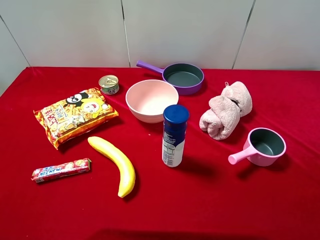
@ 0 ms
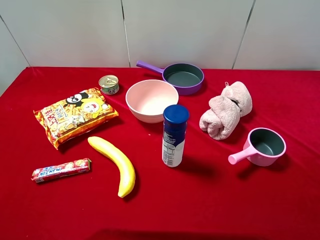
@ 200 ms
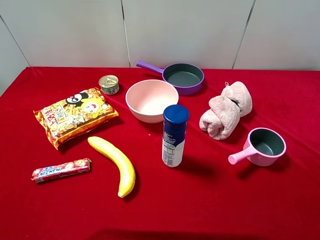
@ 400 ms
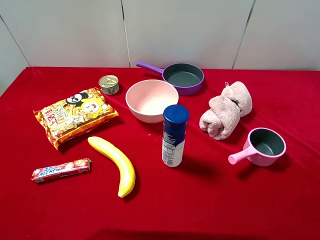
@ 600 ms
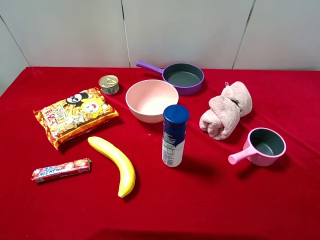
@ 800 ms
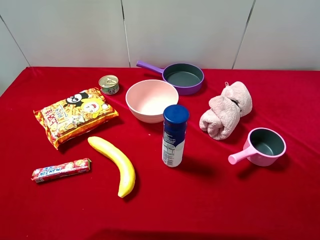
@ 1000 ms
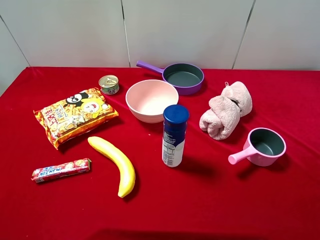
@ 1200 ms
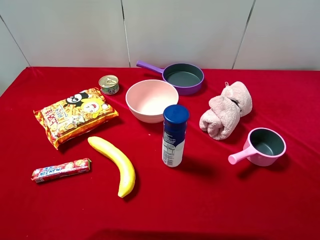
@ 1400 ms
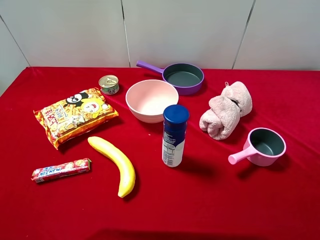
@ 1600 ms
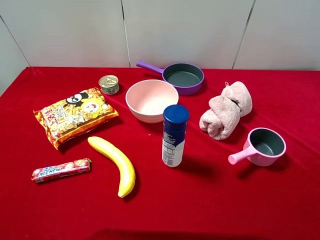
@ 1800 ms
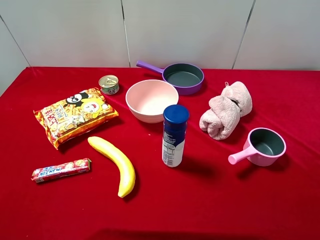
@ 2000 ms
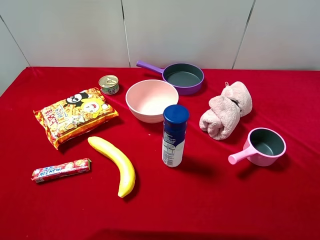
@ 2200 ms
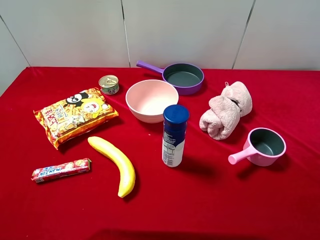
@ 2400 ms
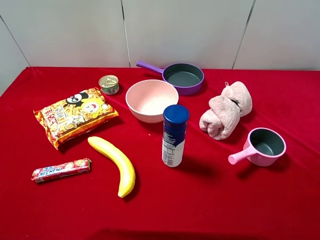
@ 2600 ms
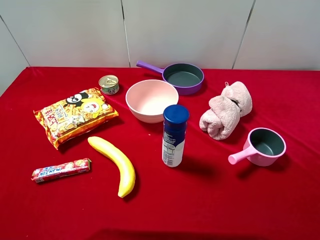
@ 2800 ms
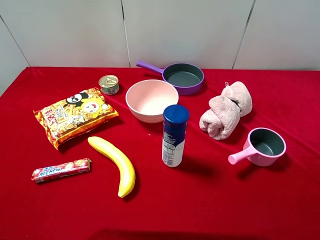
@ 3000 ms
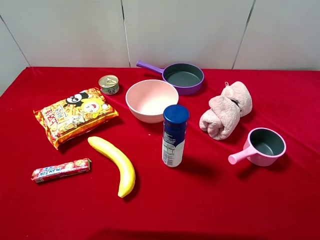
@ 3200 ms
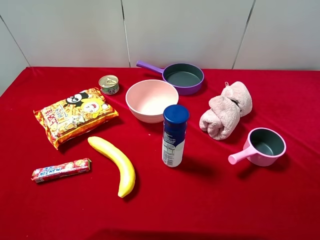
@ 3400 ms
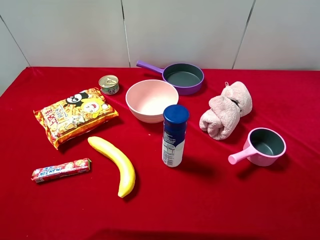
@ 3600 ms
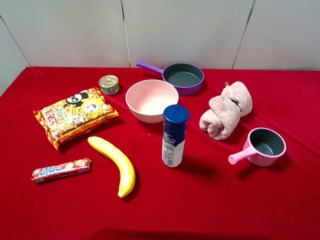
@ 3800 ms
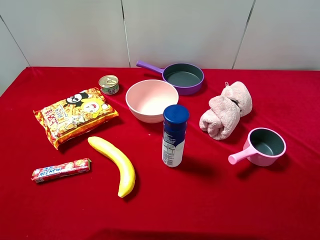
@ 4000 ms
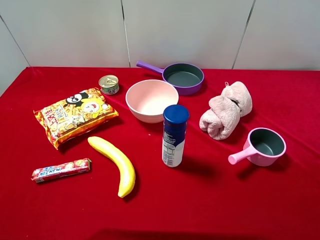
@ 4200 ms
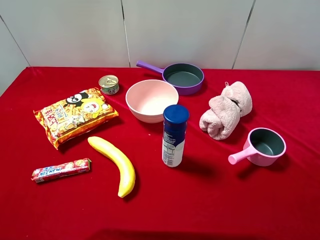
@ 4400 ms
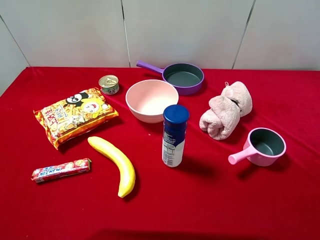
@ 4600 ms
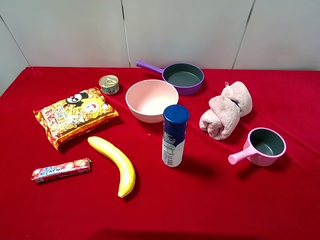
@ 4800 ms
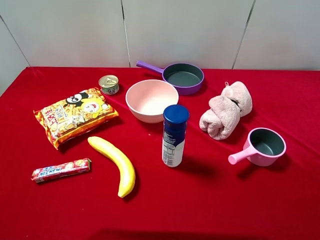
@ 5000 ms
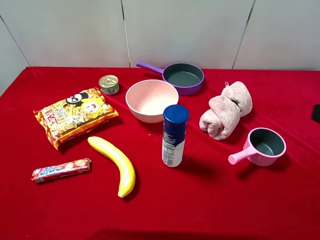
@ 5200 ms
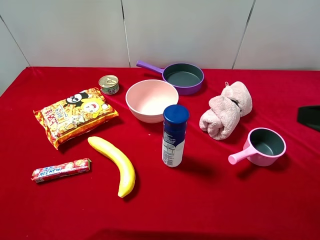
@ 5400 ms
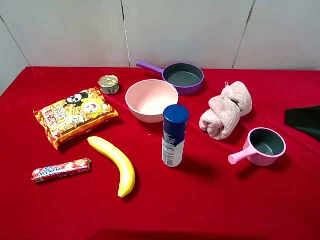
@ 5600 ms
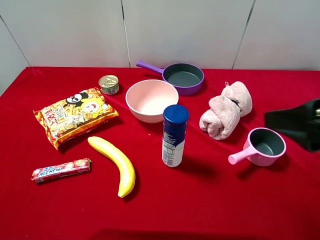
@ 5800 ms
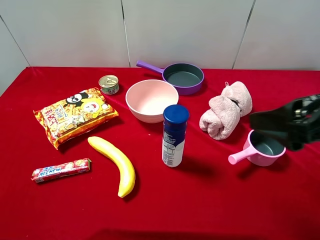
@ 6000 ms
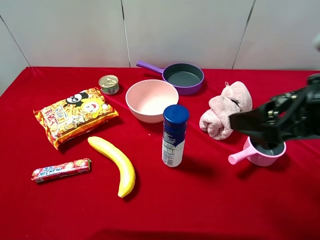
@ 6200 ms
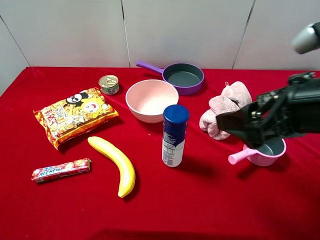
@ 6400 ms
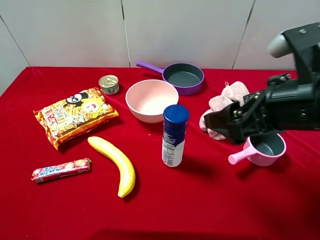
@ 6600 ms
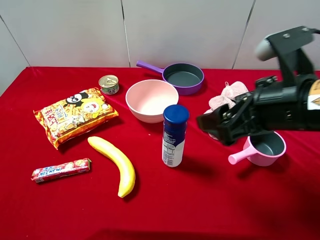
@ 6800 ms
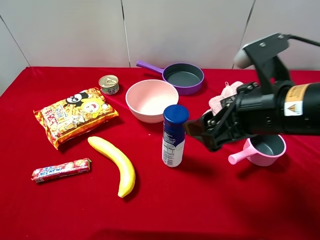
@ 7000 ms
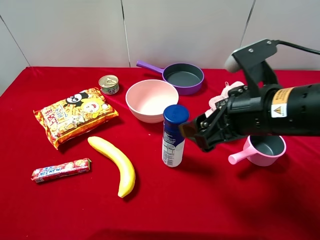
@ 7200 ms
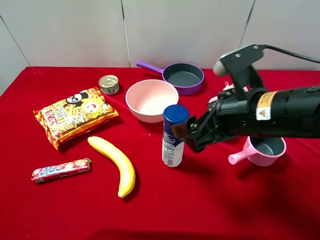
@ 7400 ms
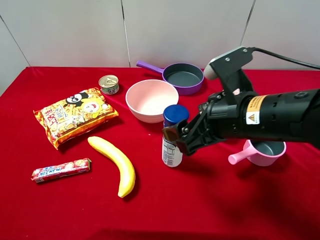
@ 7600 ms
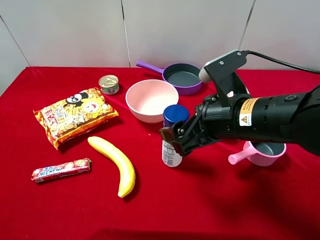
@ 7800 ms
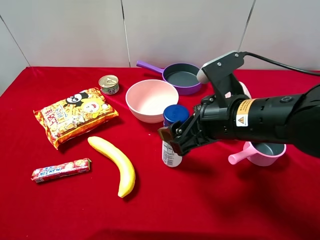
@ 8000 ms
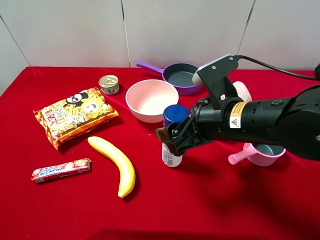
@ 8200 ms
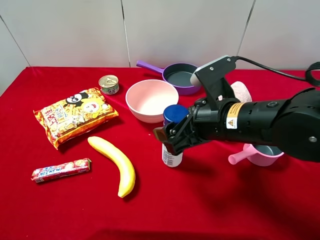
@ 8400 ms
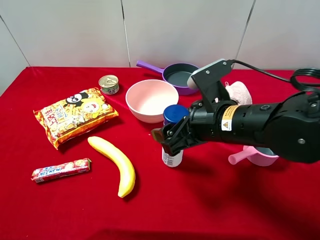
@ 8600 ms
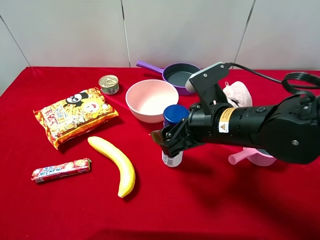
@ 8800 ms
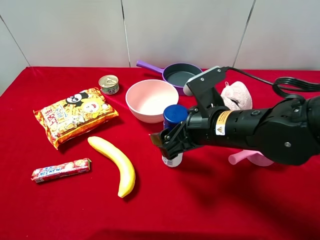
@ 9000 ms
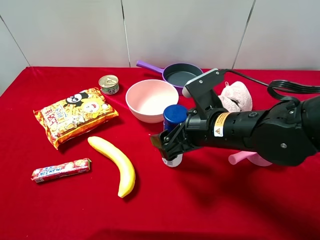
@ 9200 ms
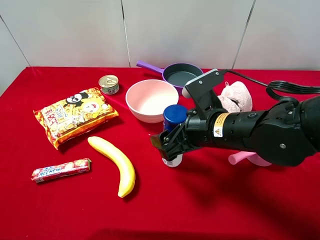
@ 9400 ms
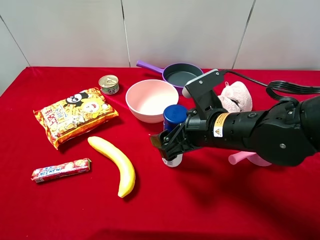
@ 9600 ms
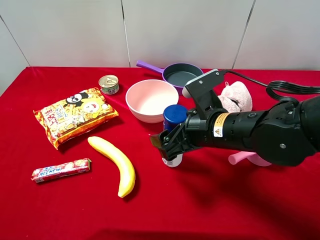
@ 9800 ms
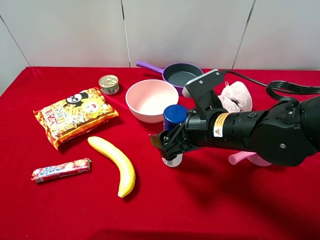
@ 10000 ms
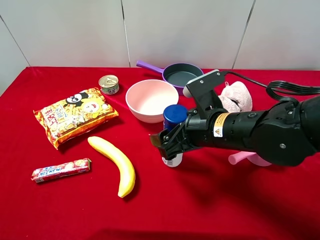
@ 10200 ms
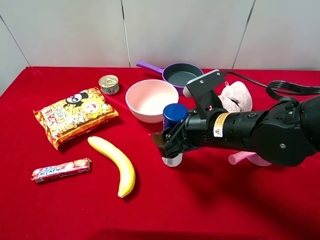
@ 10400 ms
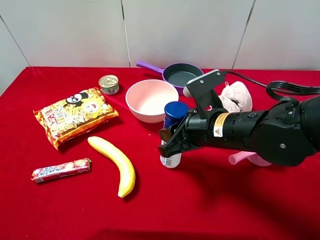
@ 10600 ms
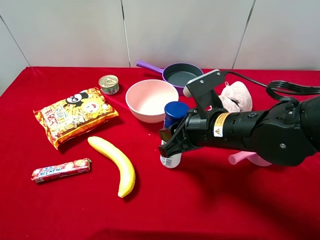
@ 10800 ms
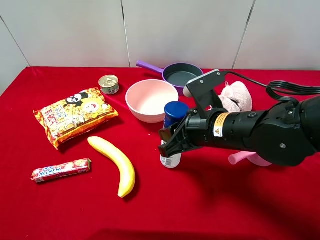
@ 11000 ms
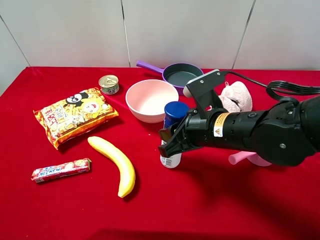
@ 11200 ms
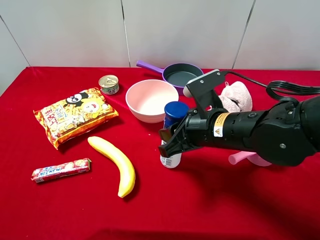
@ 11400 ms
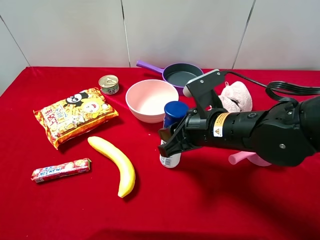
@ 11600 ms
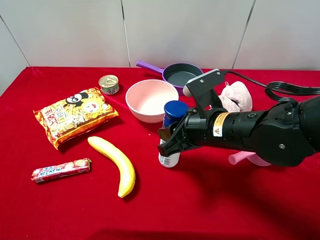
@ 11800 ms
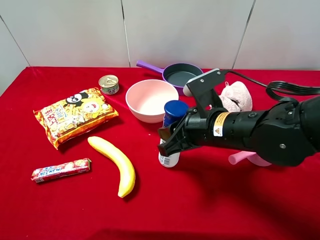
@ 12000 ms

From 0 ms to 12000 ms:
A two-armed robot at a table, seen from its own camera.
Task of the whole recording: pick up an item with a gripper and place it in a random container on the desktop.
From 0 ms to 3000 ms: The two grippers keep their place.
From 4400 ms to 6000 ms: The right gripper shifts about 10 cm forward and to the left.
From 6000 ms to 7600 ms: The right gripper travels to the left, downward and forward by approximately 15 cm.
From 7600 ms to 9000 ms: The right gripper ends up approximately 5 cm from where it was.
From 9000 ms to 10400 ms: The right gripper closes its fingers.
From 10400 ms to 12000 ms: The right gripper closes up.

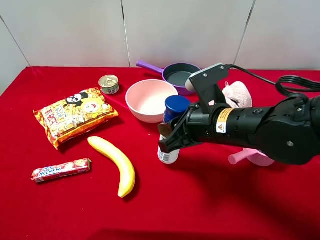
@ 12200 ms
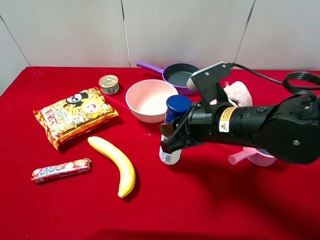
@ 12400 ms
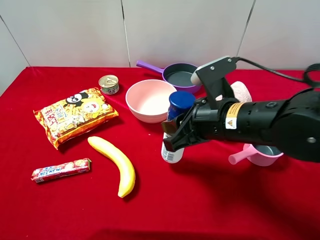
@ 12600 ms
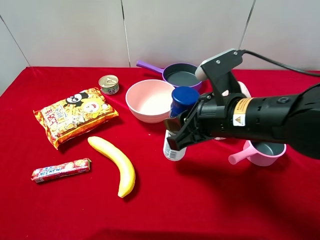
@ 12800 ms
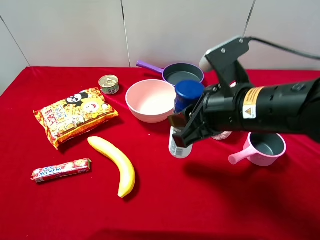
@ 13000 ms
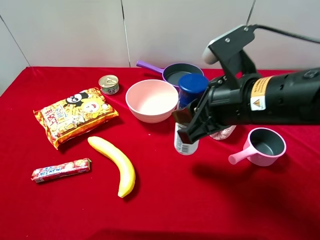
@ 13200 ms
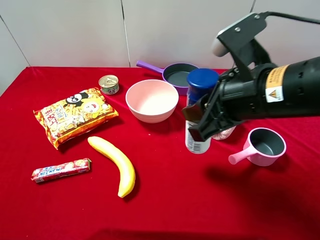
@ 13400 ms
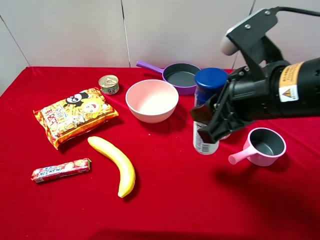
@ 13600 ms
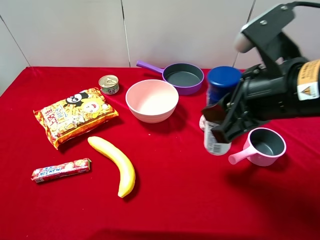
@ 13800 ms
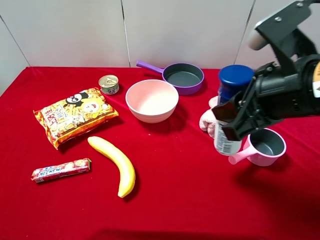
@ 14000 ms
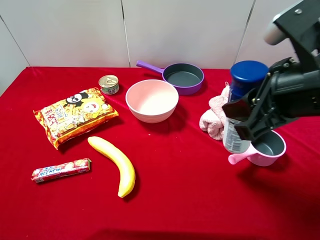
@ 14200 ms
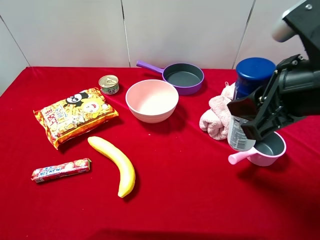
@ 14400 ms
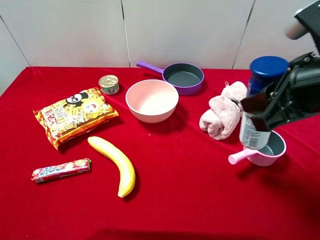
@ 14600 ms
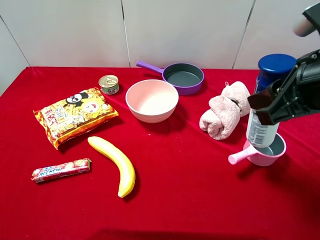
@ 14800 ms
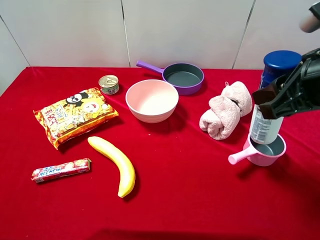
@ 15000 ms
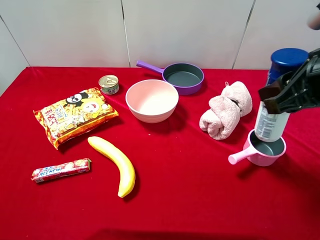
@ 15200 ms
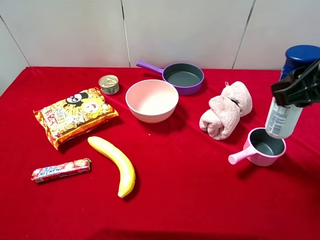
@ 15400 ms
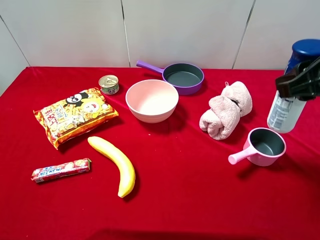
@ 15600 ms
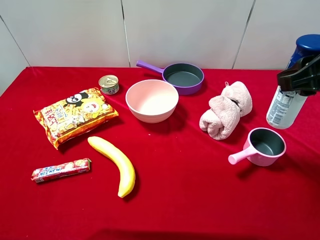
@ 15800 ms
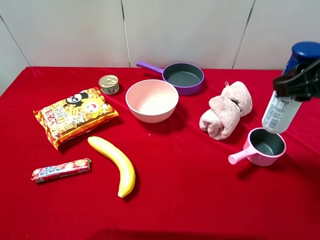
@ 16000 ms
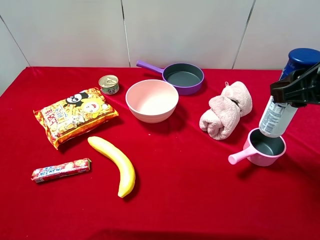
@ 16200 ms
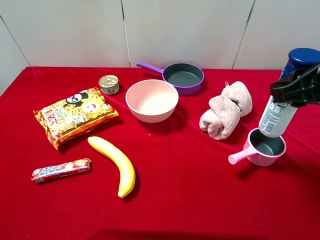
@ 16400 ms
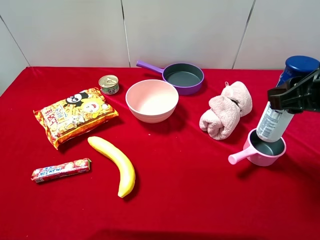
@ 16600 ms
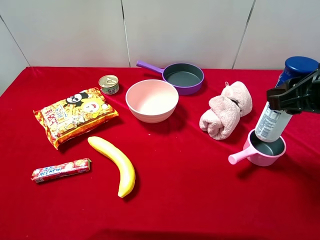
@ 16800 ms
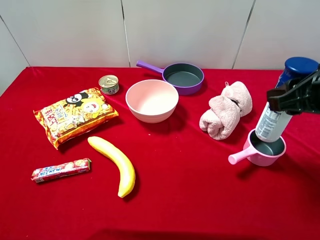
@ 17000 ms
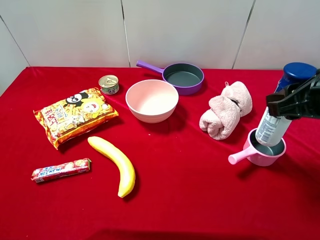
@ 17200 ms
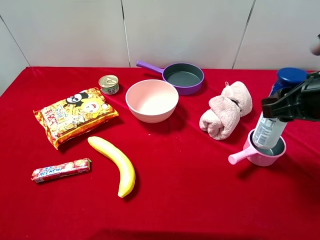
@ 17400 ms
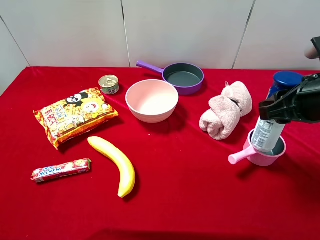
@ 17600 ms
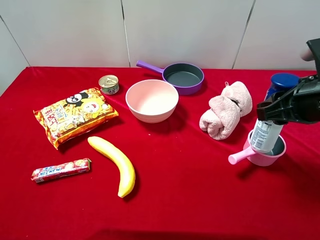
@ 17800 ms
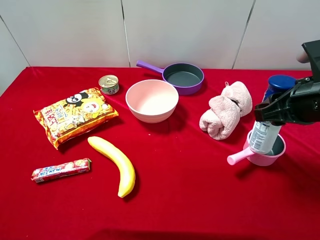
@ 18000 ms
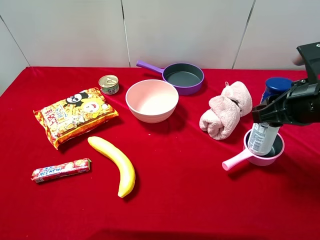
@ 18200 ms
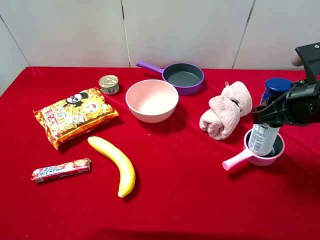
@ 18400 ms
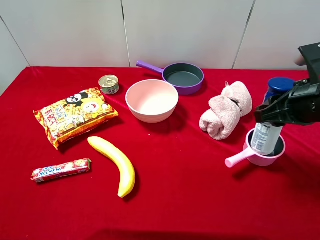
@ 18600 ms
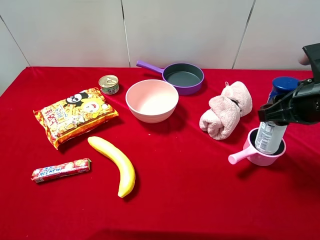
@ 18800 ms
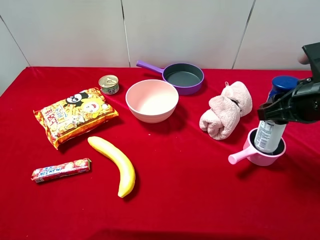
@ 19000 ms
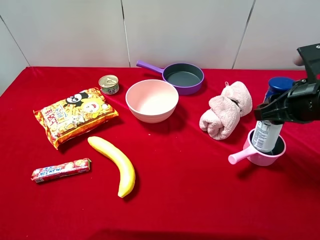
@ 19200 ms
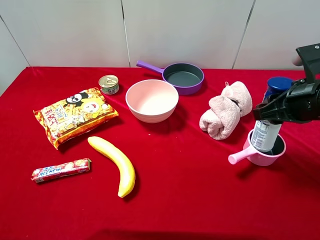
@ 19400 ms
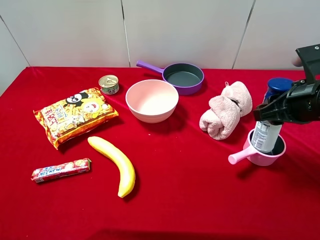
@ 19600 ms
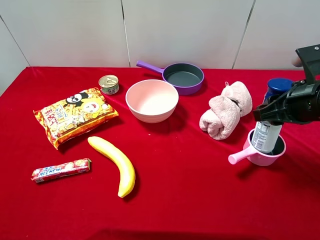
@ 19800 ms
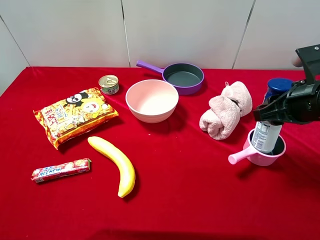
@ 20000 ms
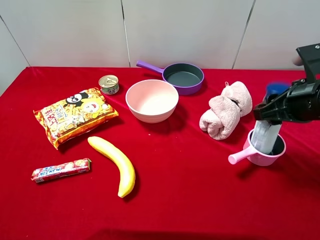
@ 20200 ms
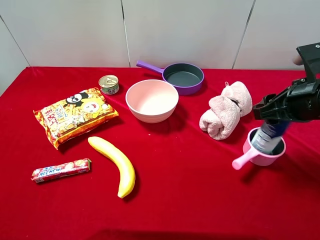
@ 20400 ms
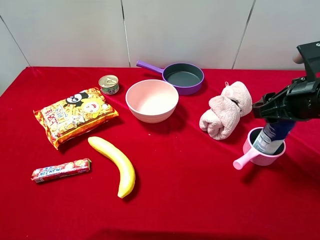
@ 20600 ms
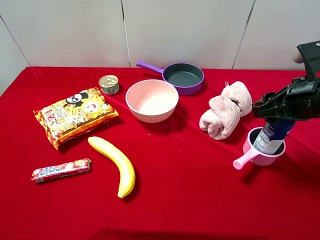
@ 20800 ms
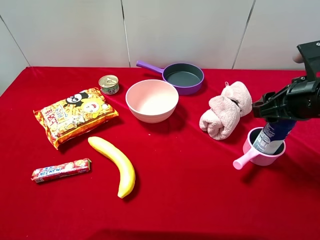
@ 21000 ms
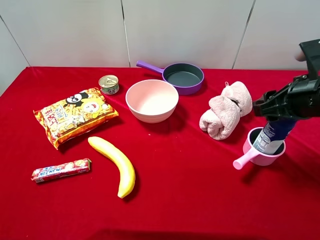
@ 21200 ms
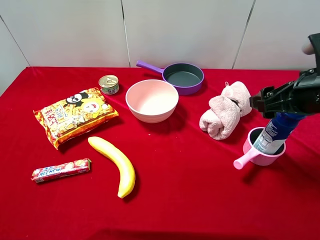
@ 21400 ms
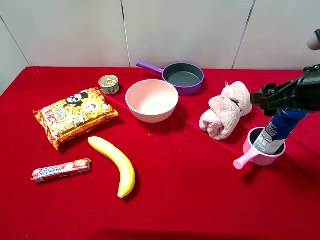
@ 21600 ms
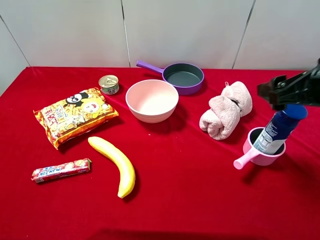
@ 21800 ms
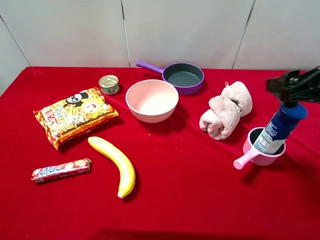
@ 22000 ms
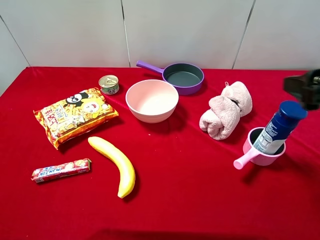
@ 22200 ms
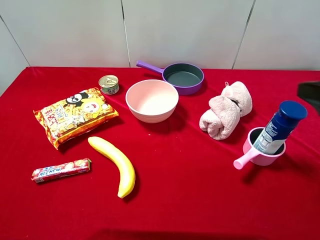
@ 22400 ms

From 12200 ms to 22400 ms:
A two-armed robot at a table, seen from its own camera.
Task of the whole recording: pick up an item with a gripper and place it in a random container on the desktop.
From 12200 ms to 13600 ms: The right gripper heads upward, covering about 10 cm.
From 13600 ms to 15200 ms: The right gripper travels to the right by some 10 cm.
From 15200 ms to 16600 ms: The grippers stay close to where they were, moving slightly.
From 16600 ms to 19400 ms: The grippers make only small movements.
From 19400 ms to 21000 ms: Both grippers stay about where they are.
From 21000 ms to 22400 ms: The right gripper heads backward and upward, covering roughly 10 cm, and opens its fingers.
